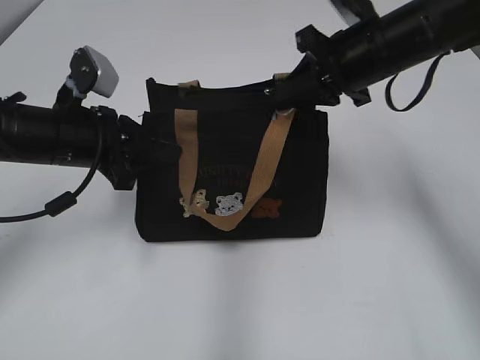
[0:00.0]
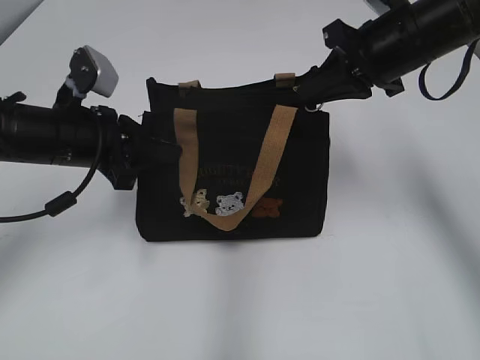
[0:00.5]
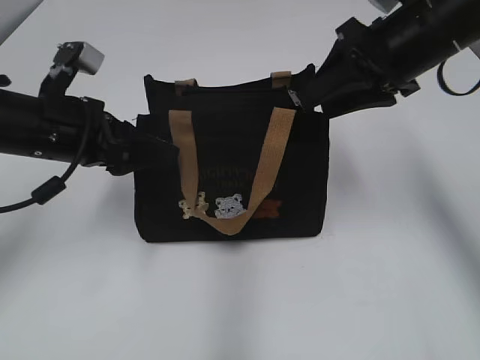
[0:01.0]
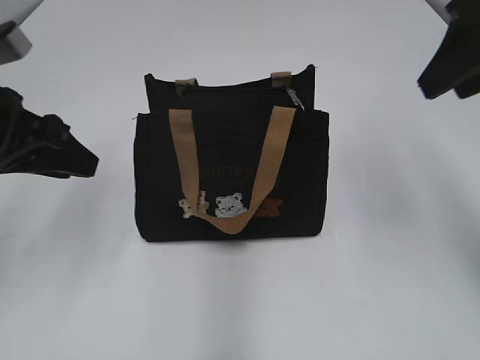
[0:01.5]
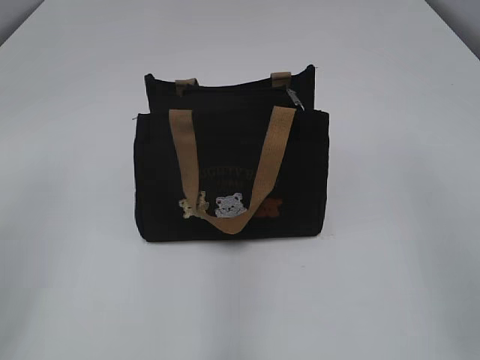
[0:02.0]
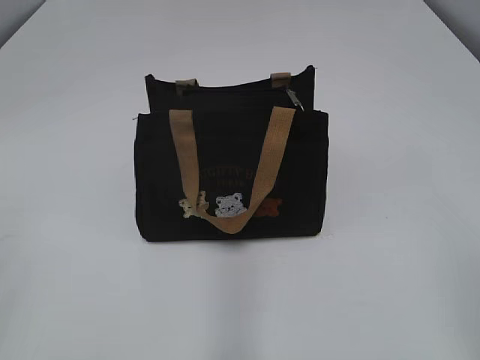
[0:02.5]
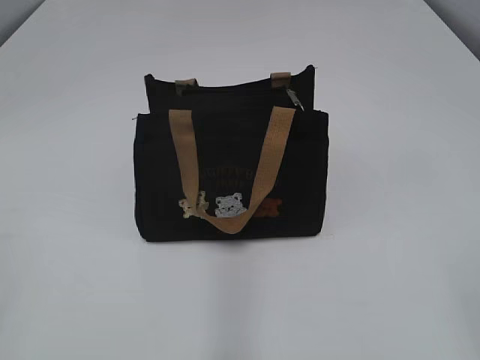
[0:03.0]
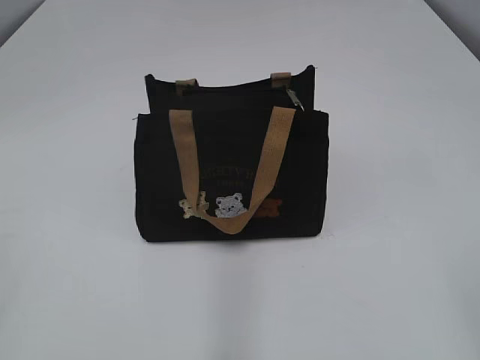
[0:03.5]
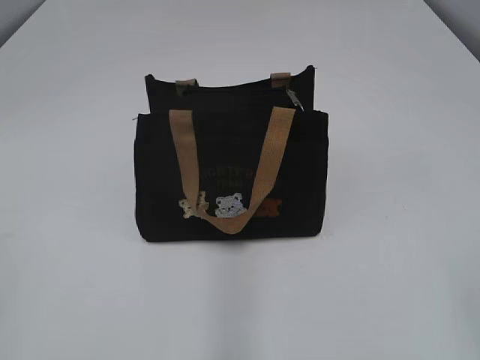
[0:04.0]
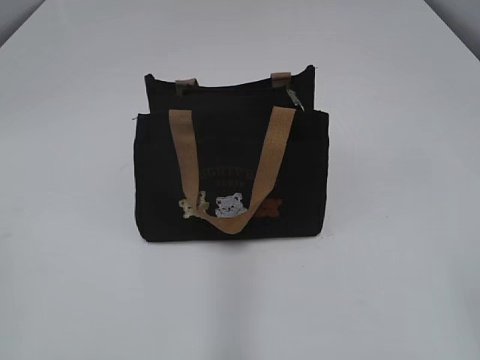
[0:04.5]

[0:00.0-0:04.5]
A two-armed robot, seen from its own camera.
0:00.0 to 0:02.0: The left gripper heads backward, upward and to the left, covering roughly 25 cm, and opens up, while the right gripper is displaced backward by about 25 cm, and opens its fingers.
